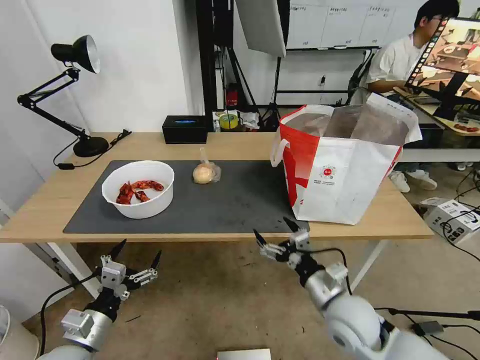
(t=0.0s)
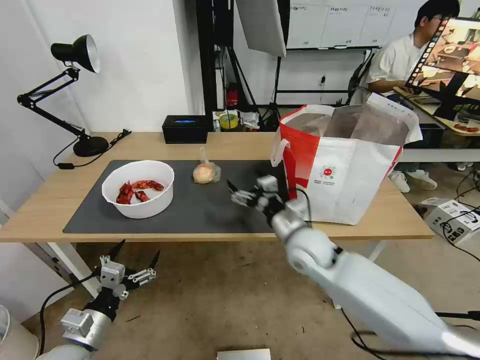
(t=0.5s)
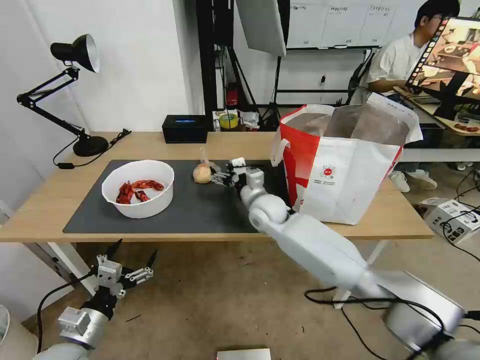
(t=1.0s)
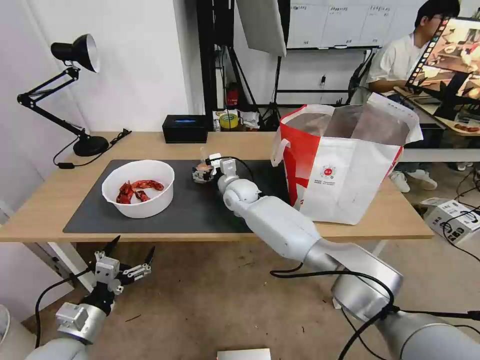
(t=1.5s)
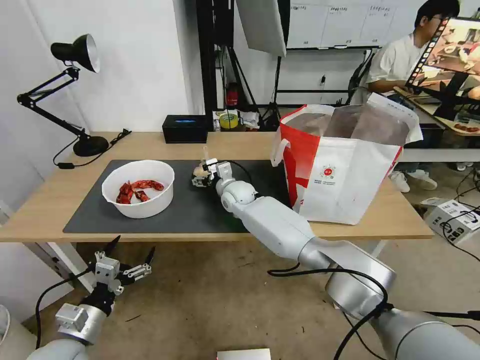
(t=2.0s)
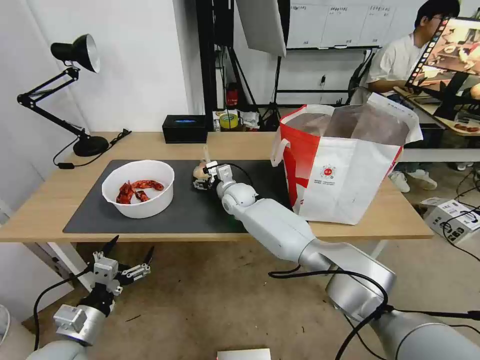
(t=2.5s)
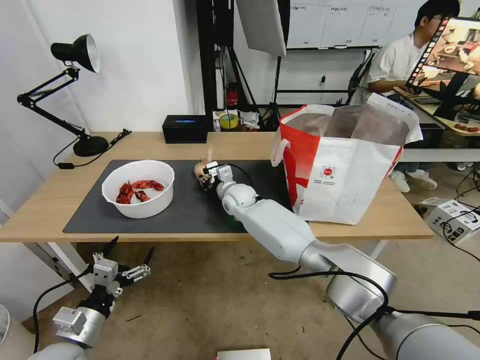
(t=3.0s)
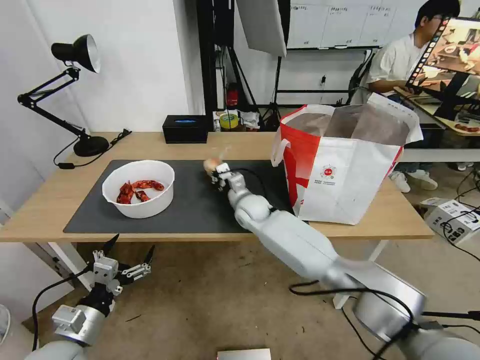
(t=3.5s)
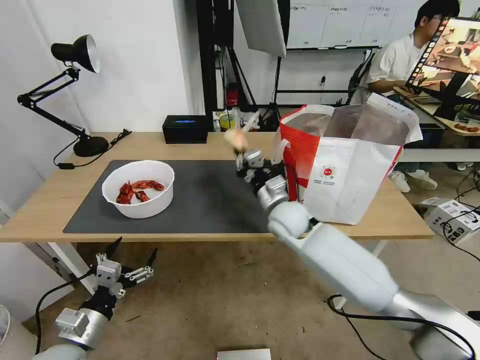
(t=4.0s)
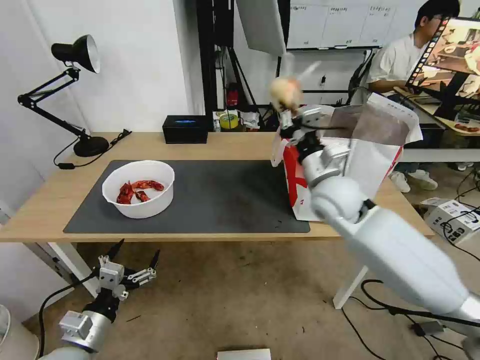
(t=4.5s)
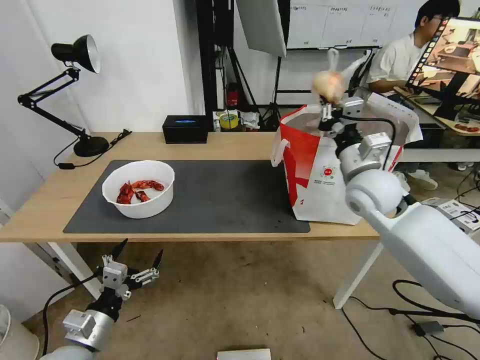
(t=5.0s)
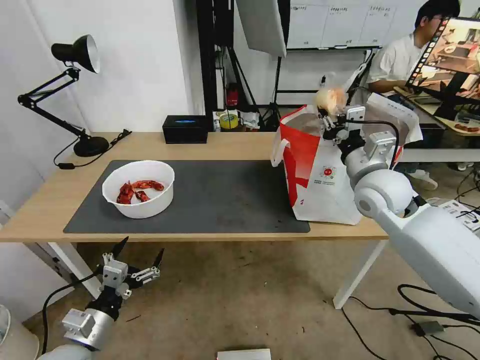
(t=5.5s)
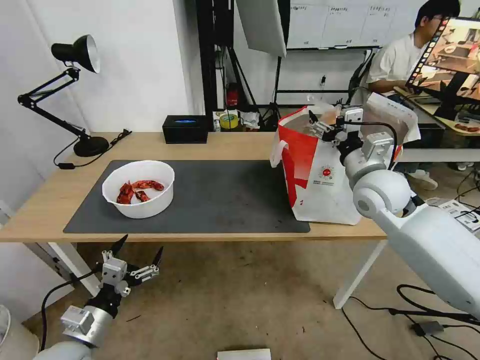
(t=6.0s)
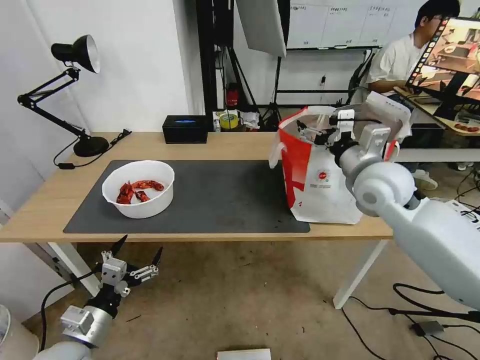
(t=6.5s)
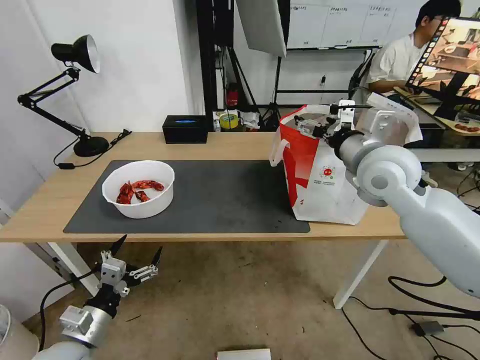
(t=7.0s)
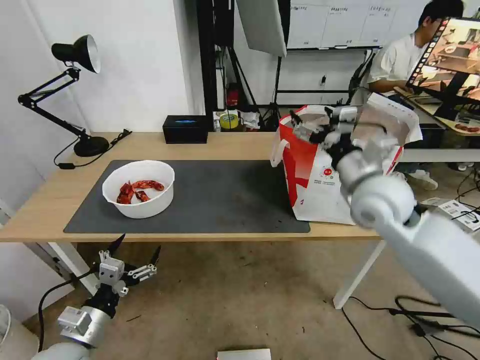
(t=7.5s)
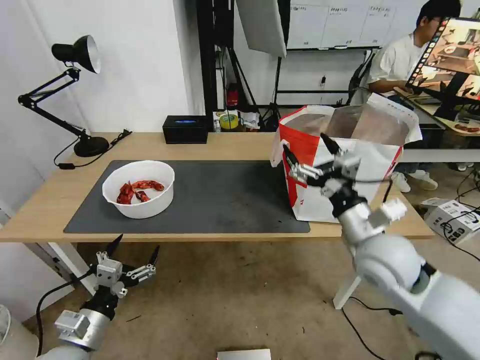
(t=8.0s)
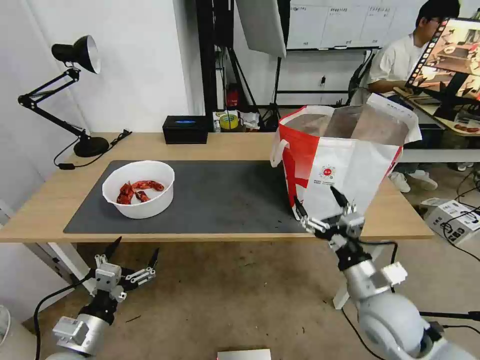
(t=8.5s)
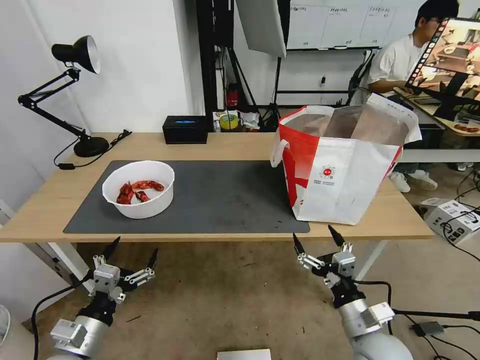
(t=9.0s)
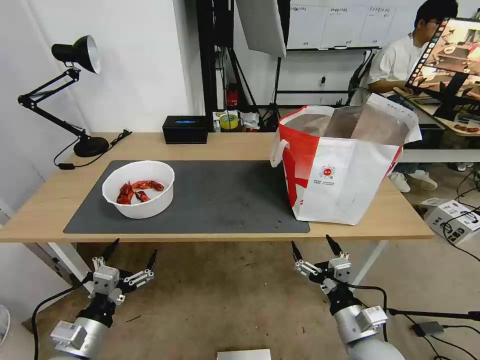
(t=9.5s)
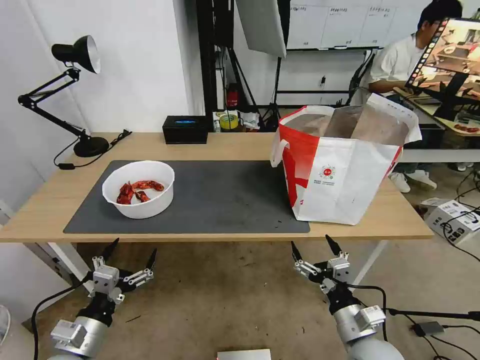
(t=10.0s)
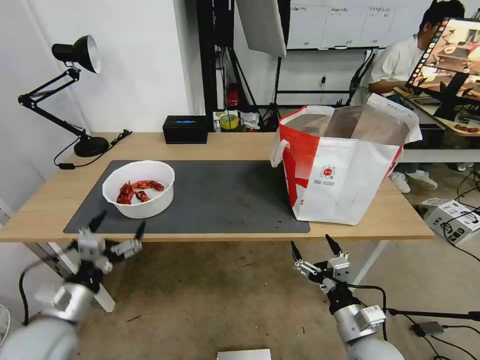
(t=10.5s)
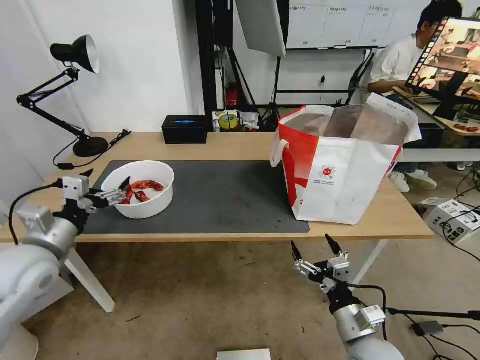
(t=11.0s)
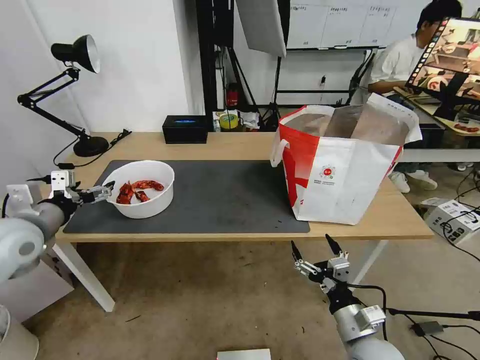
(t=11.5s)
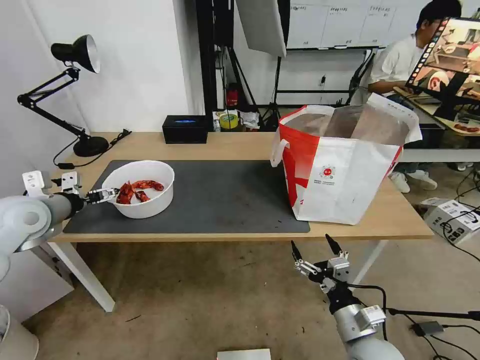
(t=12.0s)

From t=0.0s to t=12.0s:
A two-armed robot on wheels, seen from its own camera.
Task of the whole recording: Pick up the trash from the table and place it into the takeout bag.
From t=0.0s to t=2.0s: The right gripper travels forward and to the left by about 40 cm.
From t=2.0s to t=4.0s: The right gripper shifts some 15 cm to the right and backward, and closes up.
From t=4.0s to t=6.0s: The right gripper goes roughly 20 cm to the right and upward, and opens up.
From t=6.0s to t=8.0s: The right gripper goes some 10 cm backward.
From t=8.0s to t=10.0s: The right gripper travels downward and backward by some 20 cm.
From t=10.0s to t=12.0s: The left gripper travels forward, upward and to the left by approximately 30 cm.

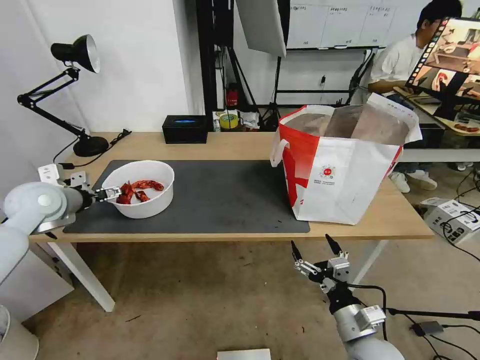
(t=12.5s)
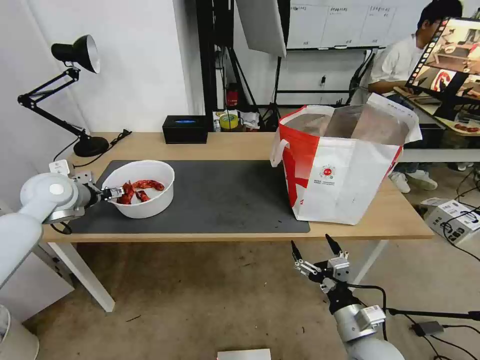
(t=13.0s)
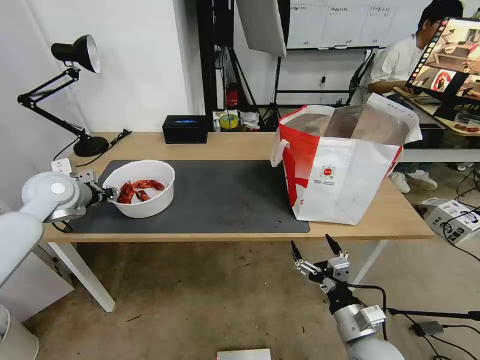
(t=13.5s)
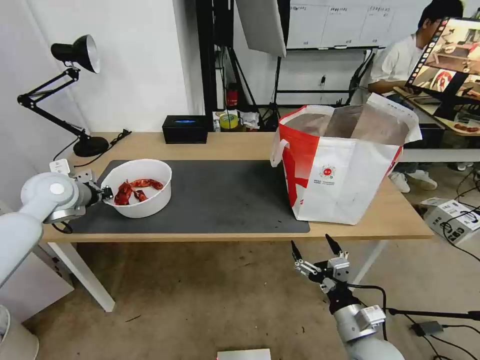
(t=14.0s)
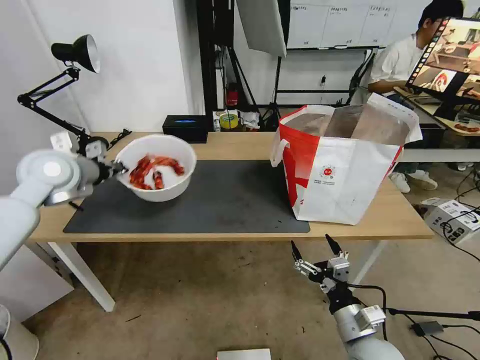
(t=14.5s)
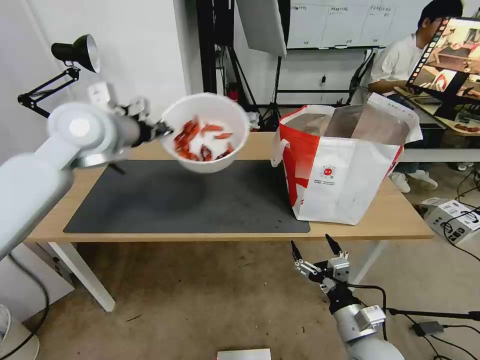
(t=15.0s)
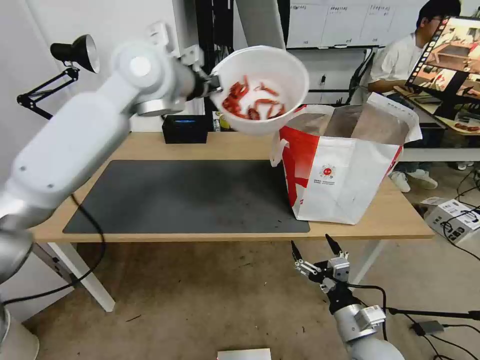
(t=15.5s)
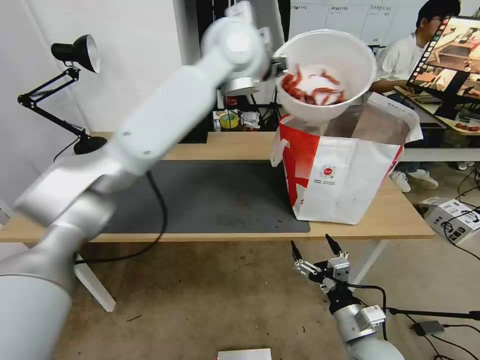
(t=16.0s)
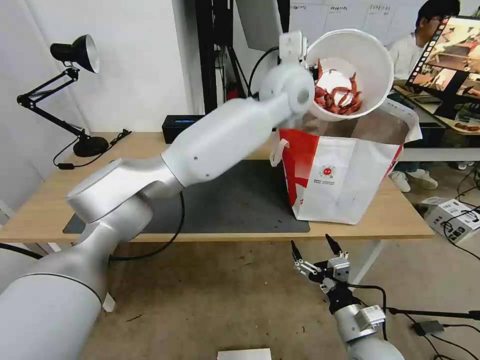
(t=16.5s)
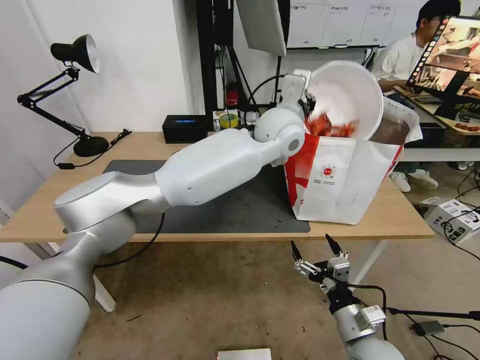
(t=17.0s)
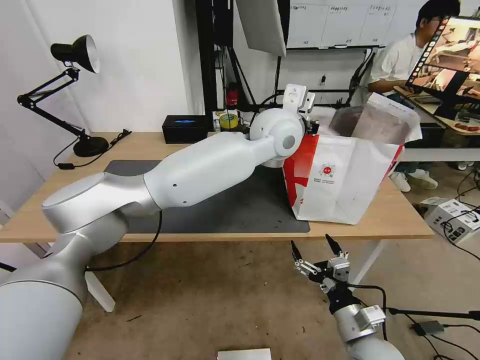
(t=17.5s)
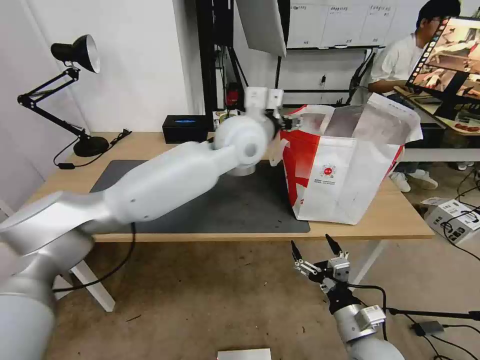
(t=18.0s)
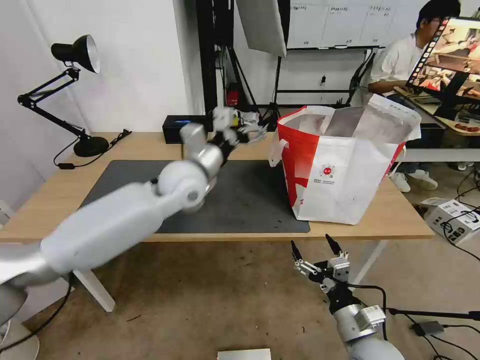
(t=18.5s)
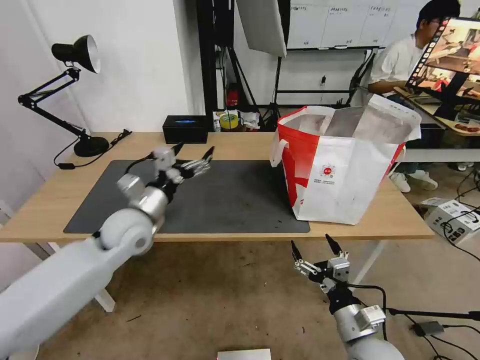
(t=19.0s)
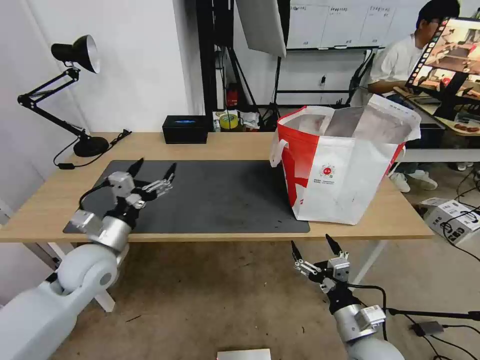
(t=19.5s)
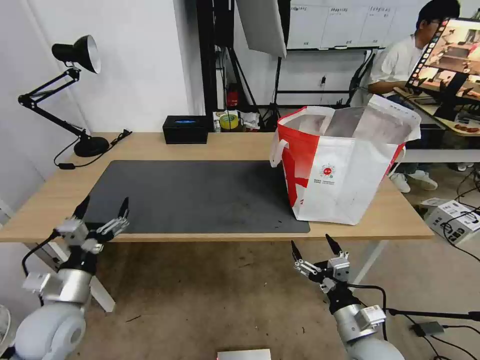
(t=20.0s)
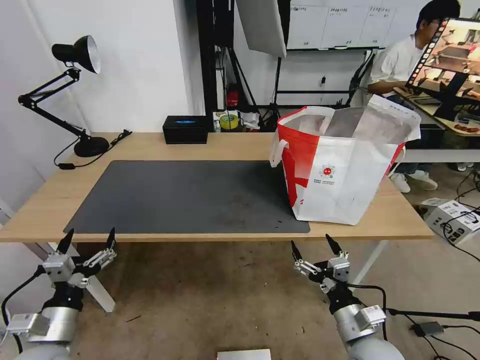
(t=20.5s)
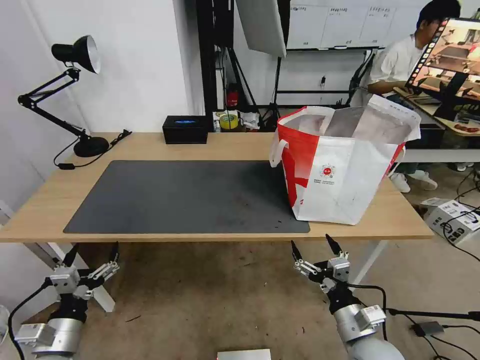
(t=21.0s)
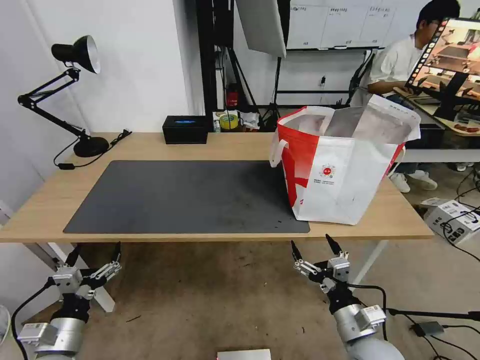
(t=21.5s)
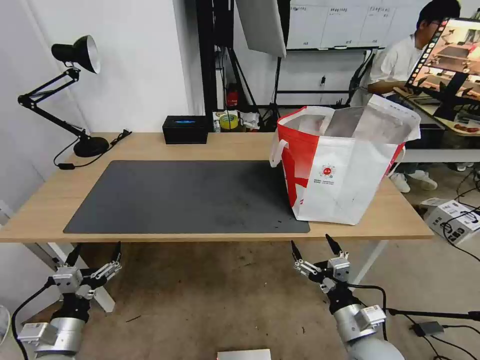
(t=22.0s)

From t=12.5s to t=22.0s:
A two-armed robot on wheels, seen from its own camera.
Task of the whole recording: Pick up the trash from the table and place it into the takeout bag.
From t=12.5s to t=14.5s: The left gripper is displaced upward and to the right by about 10 cm, and closes up.
From t=14.5s to t=16.5s: The left gripper shifts some 40 cm to the right.
From t=16.5s to t=18.0s: The left gripper shifts approximately 10 cm to the left, downward and backward, and opens up.
From t=18.0s to t=20.0s: The left gripper travels to the left, downward and backward by some 50 cm.
From t=20.0s to t=22.0s: The left gripper is displaced backward and downward by roughly 10 cm.

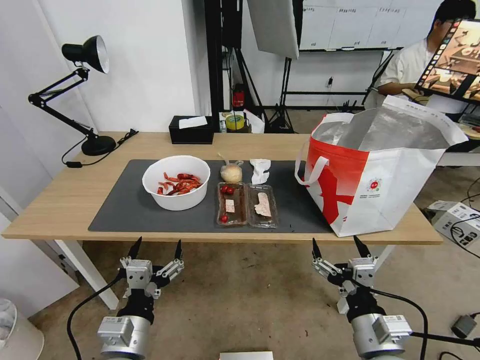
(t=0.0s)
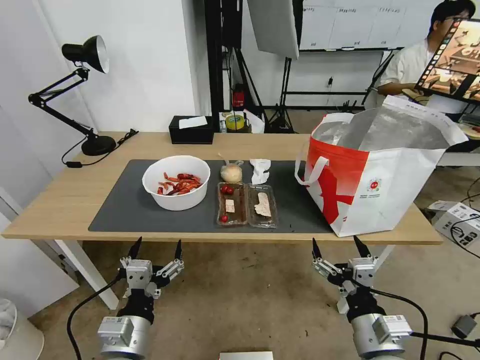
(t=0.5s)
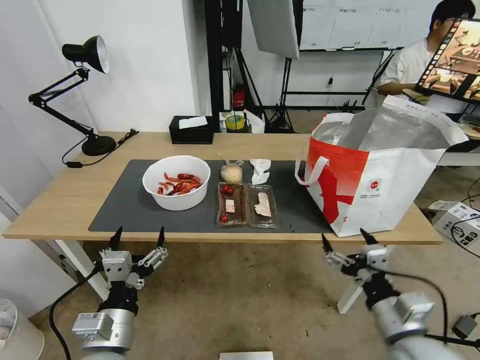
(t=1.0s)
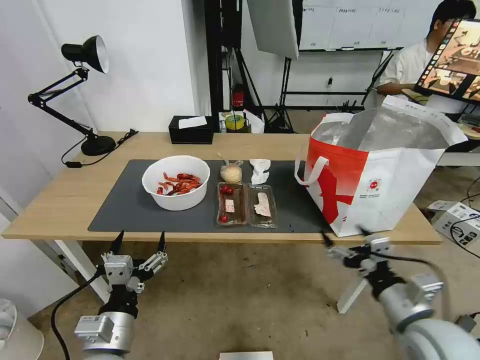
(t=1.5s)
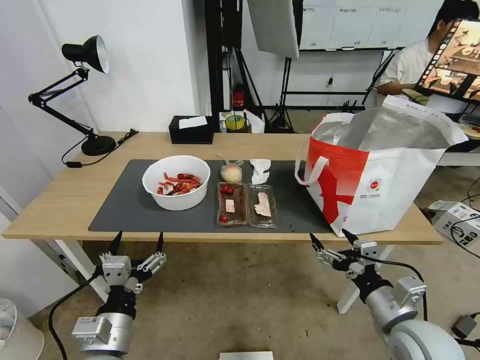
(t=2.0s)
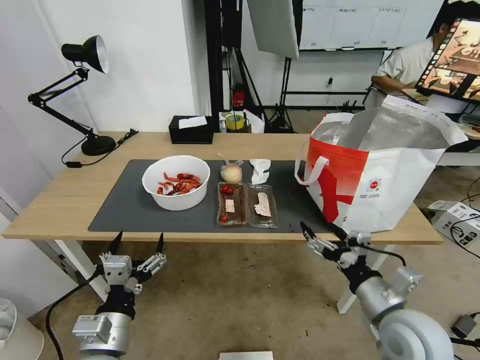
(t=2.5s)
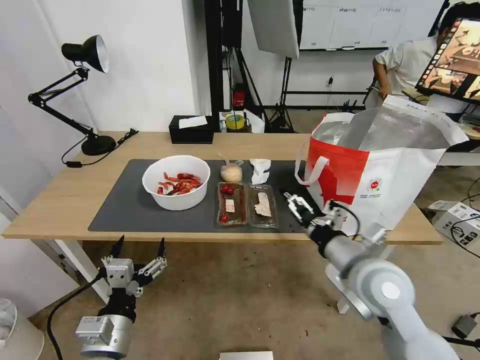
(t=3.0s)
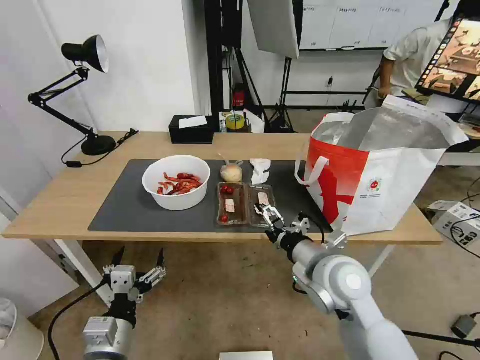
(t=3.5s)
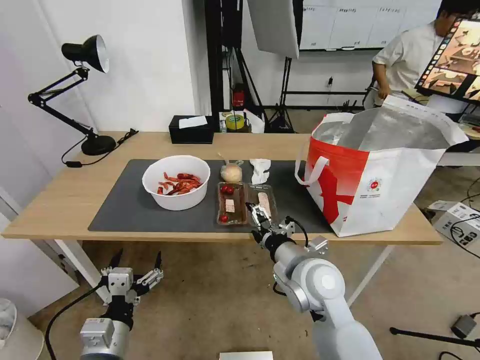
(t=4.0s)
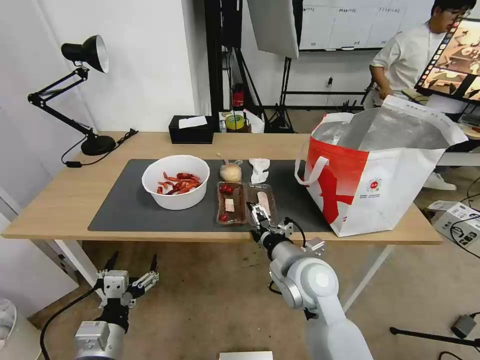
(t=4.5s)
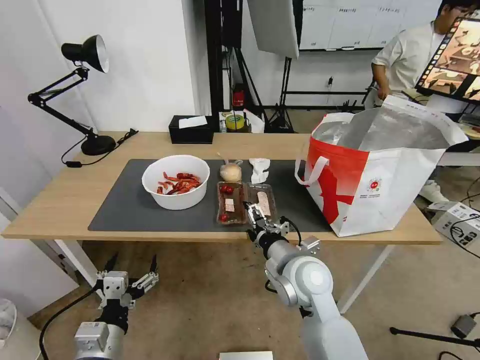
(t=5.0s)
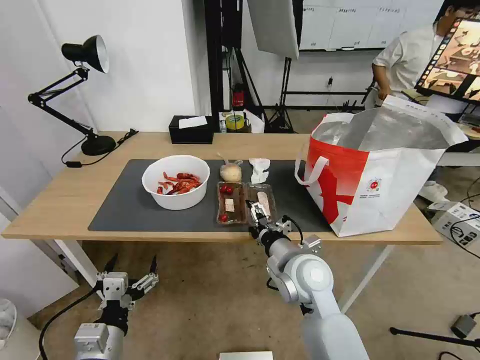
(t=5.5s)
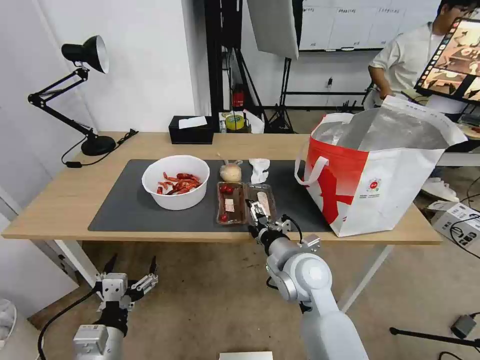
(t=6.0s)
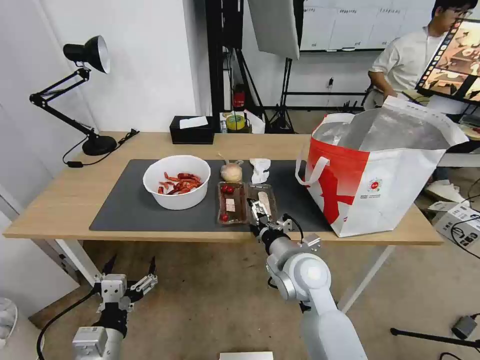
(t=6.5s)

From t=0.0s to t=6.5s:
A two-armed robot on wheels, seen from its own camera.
Task of the whole recording: Pick up the trash from the table and place it into the takeout bag.
From t=2.0s to t=4.5s: The right gripper shifts approximately 20 cm to the left and forward.
From t=4.5s to t=6.5s: The grippers move only a little.
